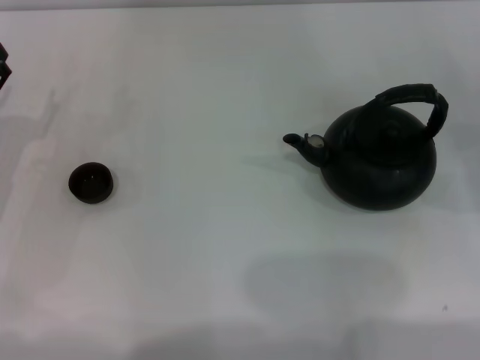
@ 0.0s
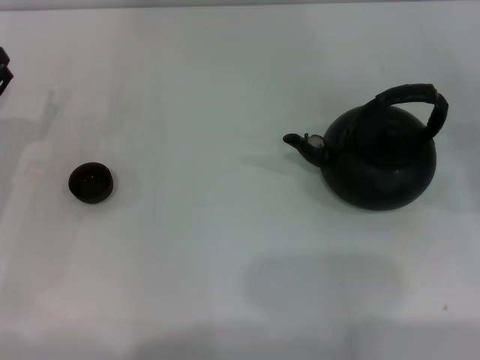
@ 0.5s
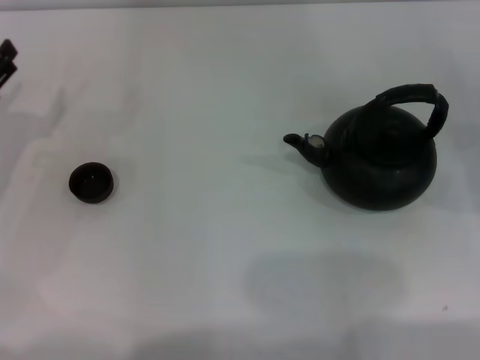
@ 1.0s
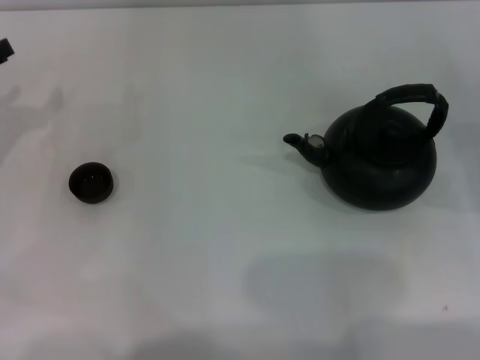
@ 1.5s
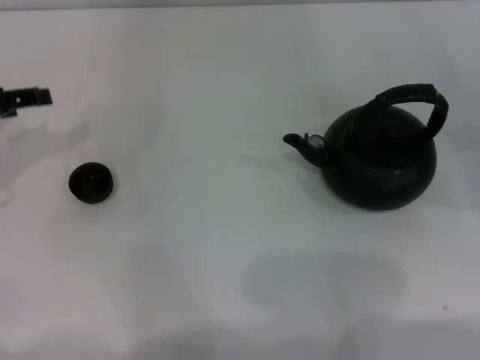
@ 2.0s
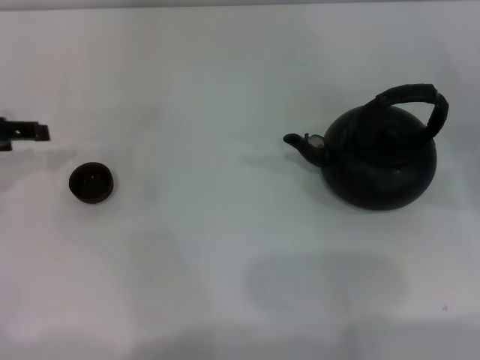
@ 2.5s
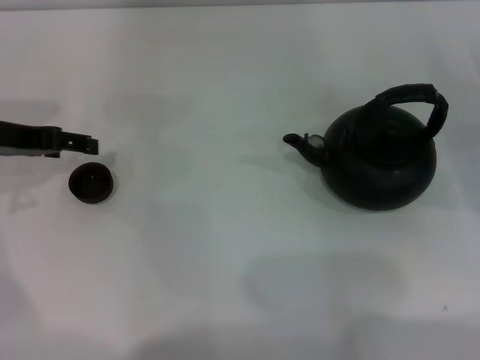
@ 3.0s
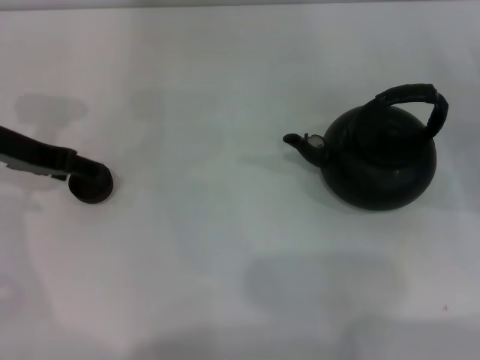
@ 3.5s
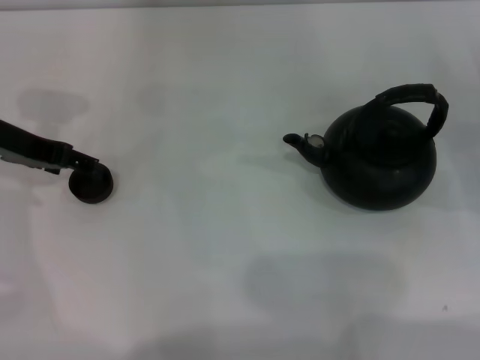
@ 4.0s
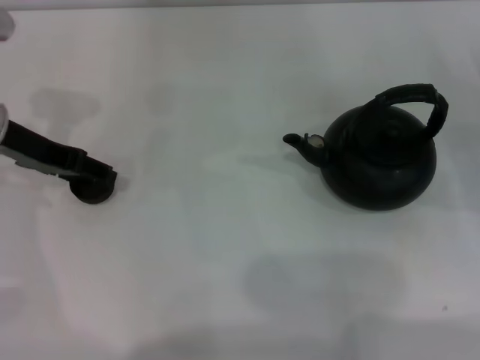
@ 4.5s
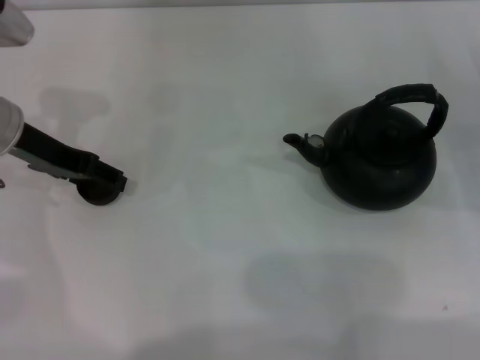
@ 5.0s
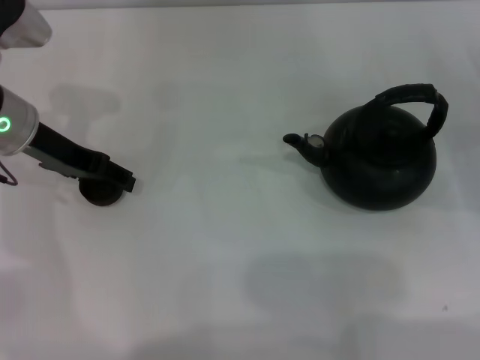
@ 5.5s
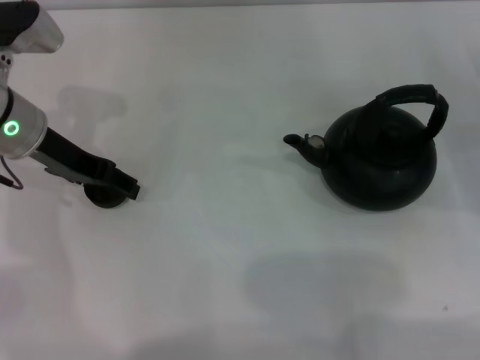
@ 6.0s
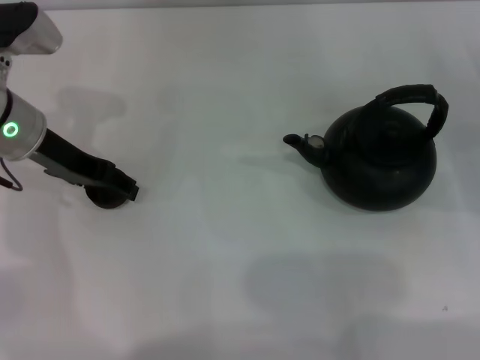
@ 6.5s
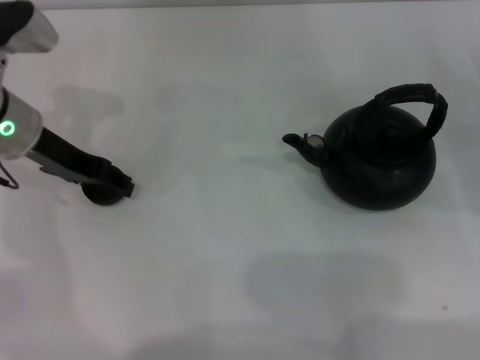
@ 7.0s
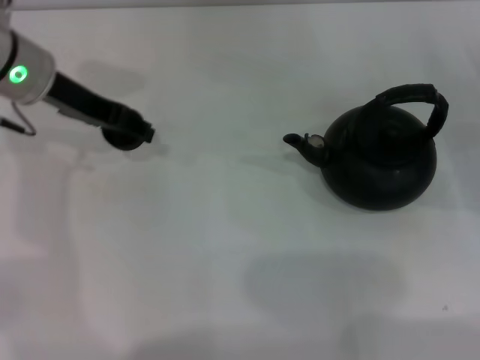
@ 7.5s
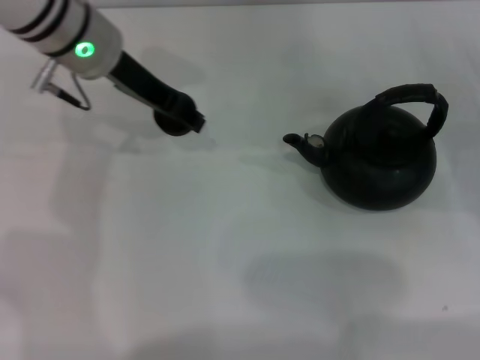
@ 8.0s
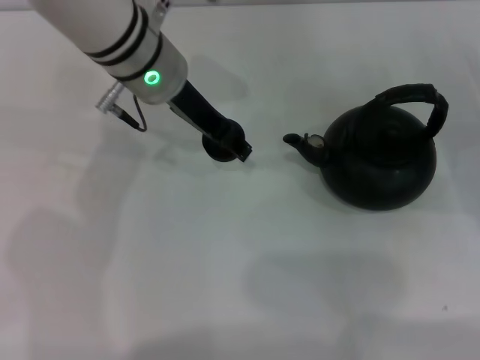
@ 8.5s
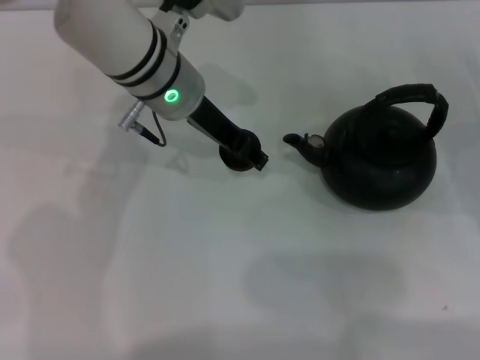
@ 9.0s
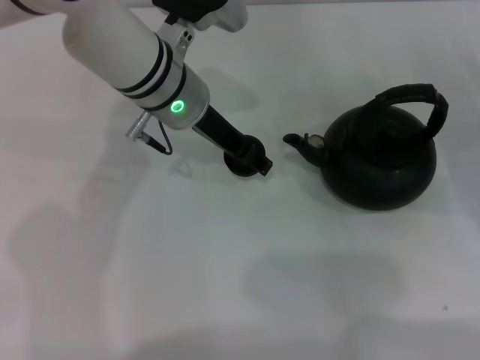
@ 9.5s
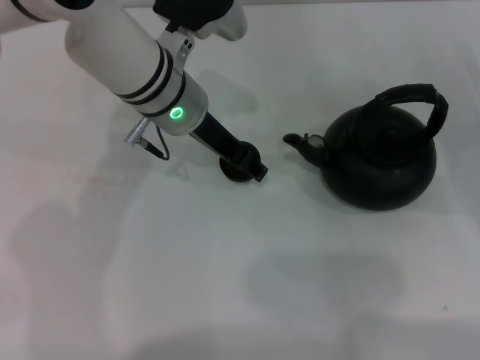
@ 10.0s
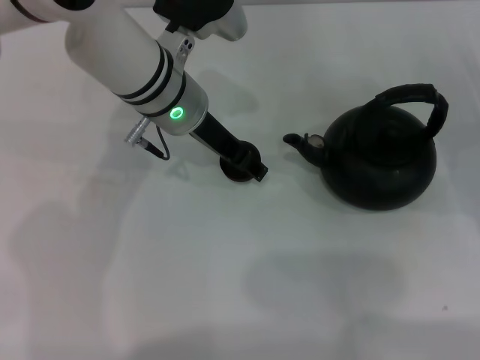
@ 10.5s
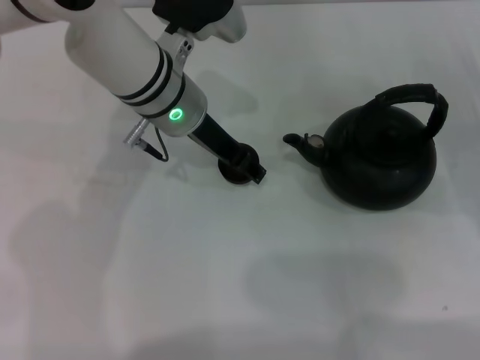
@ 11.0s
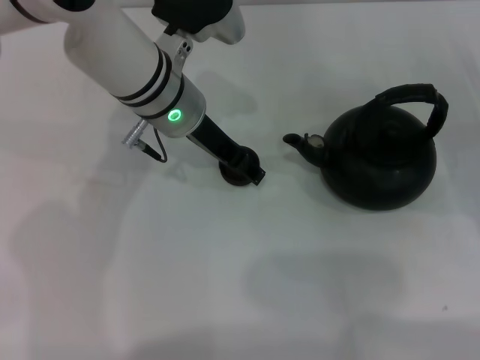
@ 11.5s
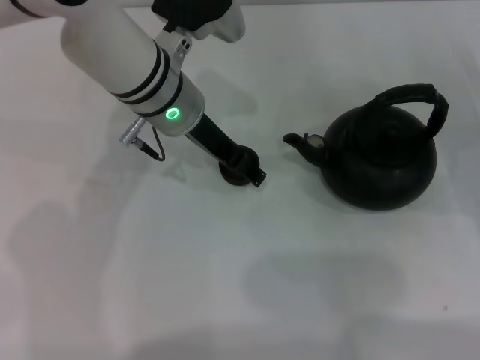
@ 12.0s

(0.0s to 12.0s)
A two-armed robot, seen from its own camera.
Task of the whole recording: Grasp the handle of the teapot with one hand and pour tea into the teacup.
Step, 0.0s - 8.0s: Pick up the teacup with the left gripper.
0.0s - 2.0s: The left gripper is displaced upward by some 10 cm.
2.0s - 4.0s: The left gripper heads to the right, covering roughly 5 cm.
4.0s - 6.0s: There are only small adjustments of the grippers.
6.0s - 8.0s: The left gripper is displaced to the right and upward by about 10 cm, and closes its fingers.
8.0s - 10.0s: The left gripper moves to the right and downward, about 10 cm.
10.0s - 12.0s: The left gripper opens.

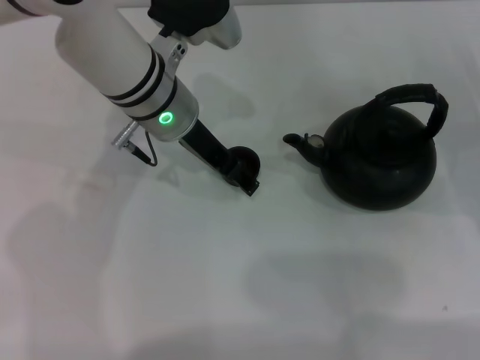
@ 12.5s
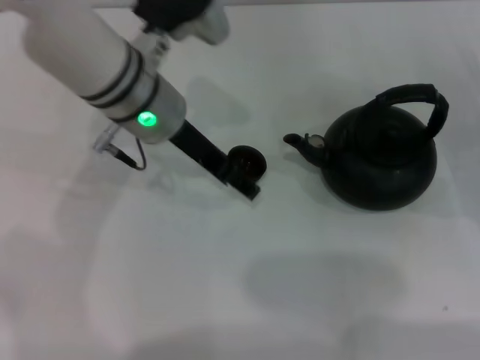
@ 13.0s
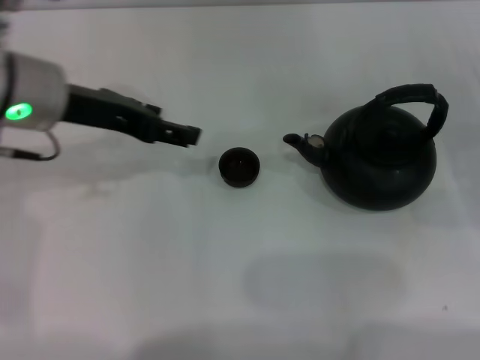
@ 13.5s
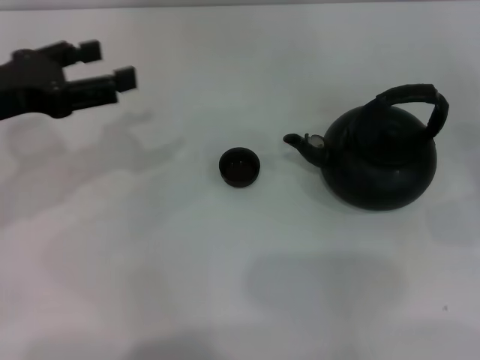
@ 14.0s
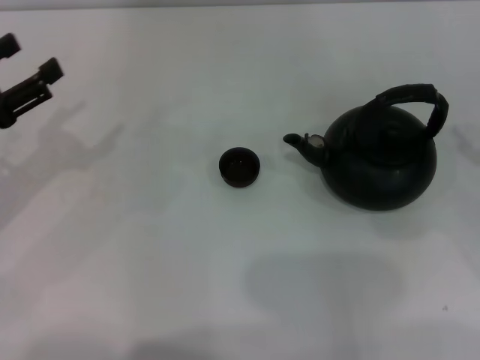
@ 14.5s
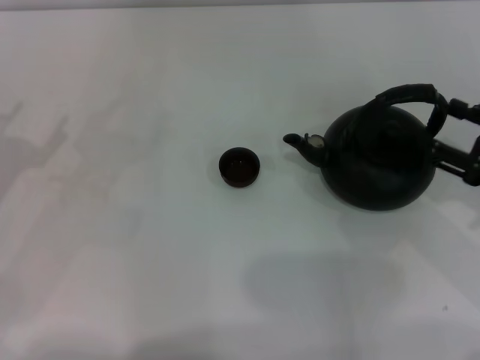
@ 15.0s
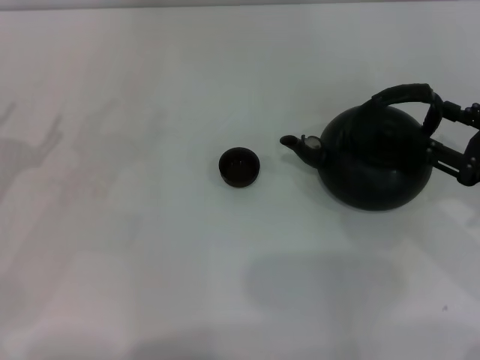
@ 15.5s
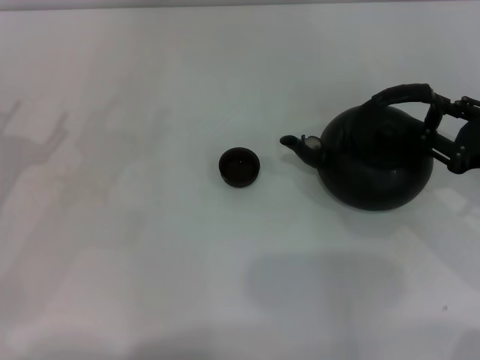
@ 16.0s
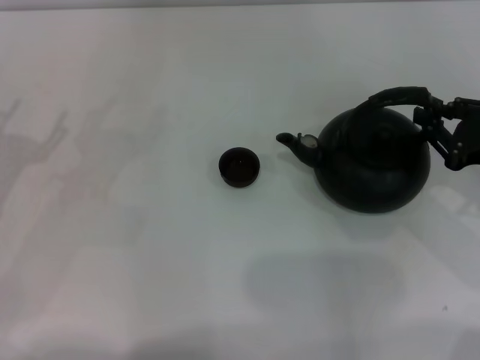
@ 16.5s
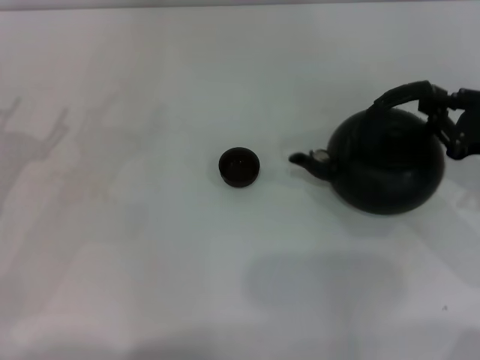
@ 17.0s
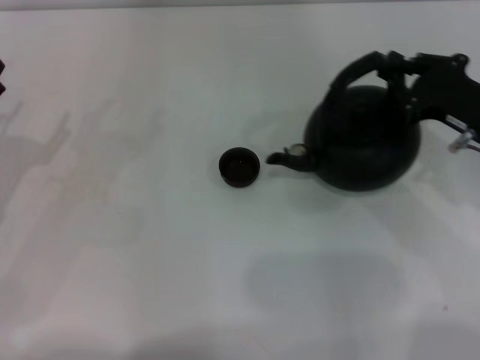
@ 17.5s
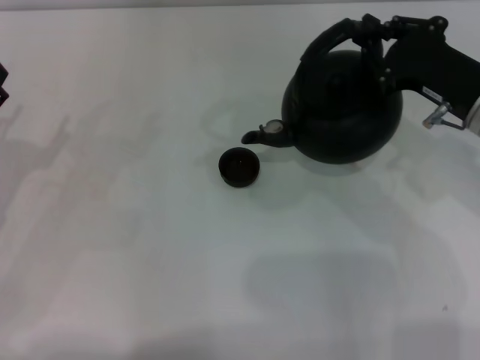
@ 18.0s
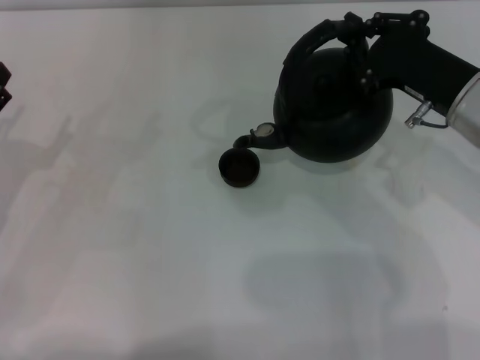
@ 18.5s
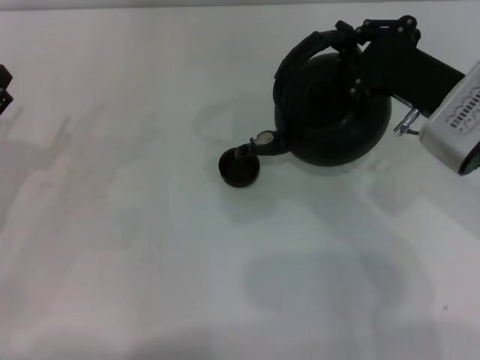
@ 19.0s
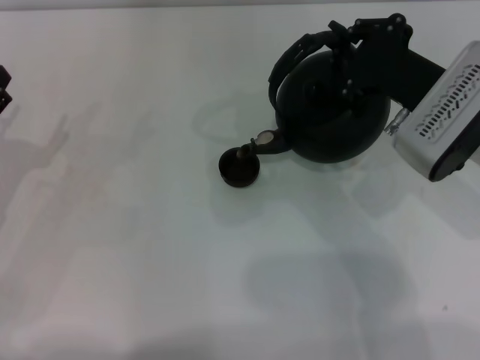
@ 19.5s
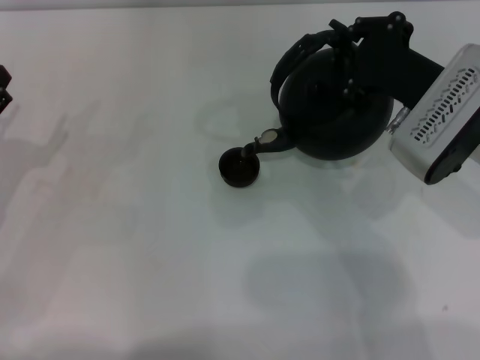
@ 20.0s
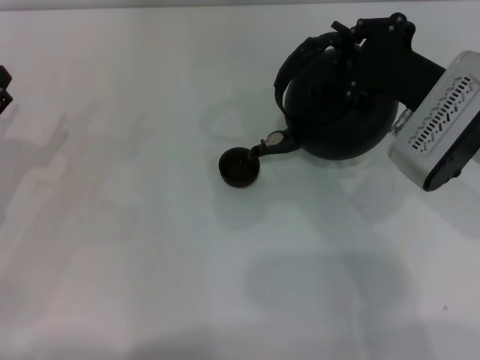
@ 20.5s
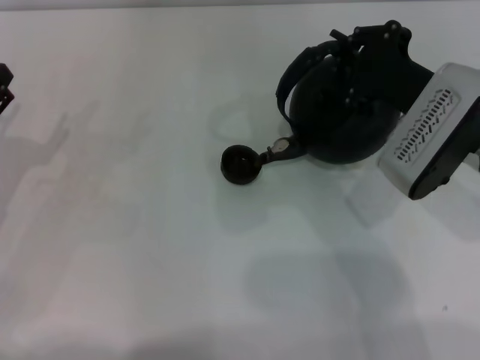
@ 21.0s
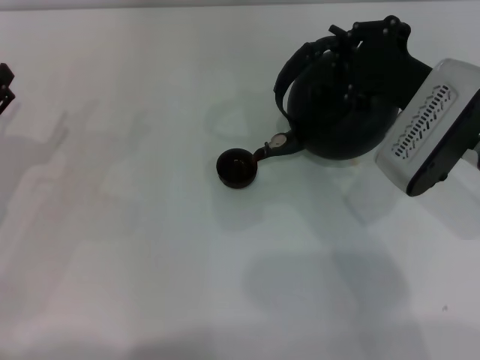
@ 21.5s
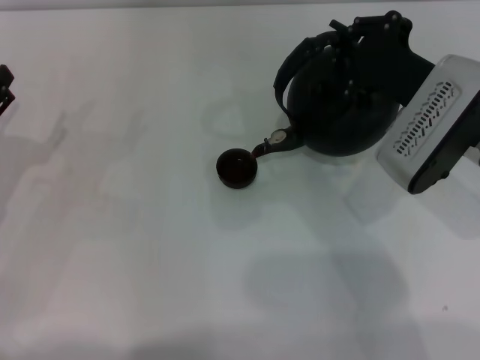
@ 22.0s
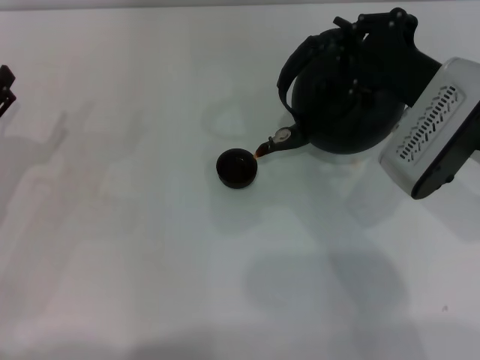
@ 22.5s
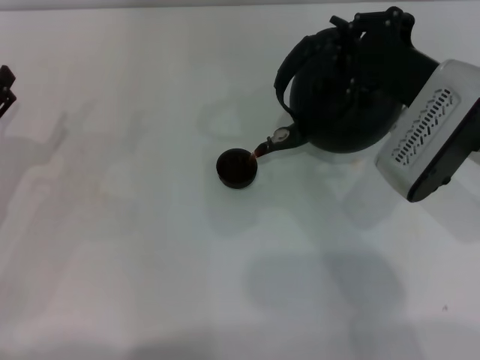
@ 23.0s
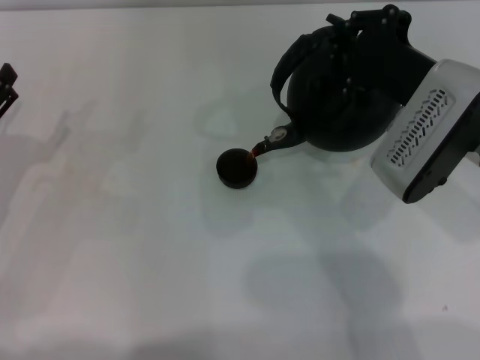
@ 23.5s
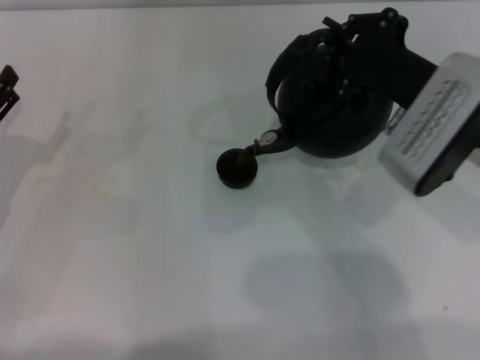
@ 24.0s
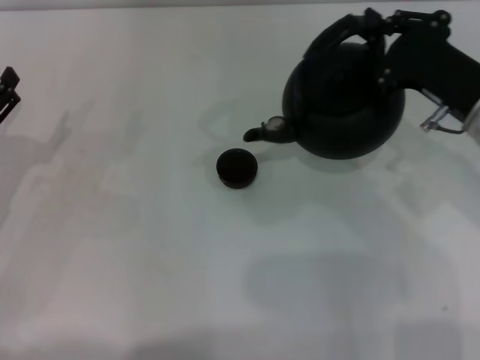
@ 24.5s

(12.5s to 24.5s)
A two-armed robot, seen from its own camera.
Task of the whole recording: Grasp the handle of the teapot with one hand and pour tea into the teacup.
Step, 13.5s - 17.0s: Pick up the teapot with the right gripper.
Step, 18.0s - 24.0s: Pour tea into the teacup with the right gripper.
12.5s - 14.5s: The right gripper heads upward, covering about 10 cm. Meanwhile the left gripper heads to the left and backward, covering some 25 cm.
14.5s - 16.5s: The right gripper ends up some 5 cm from where it was, and closes.
16.5s - 18.5s: The right gripper moves to the left, approximately 10 cm.
18.5s - 20.5s: The grippers stay close to where they were, moving slightly.
20.5s - 22.5s: The grippers stay close to where they were, moving slightly.

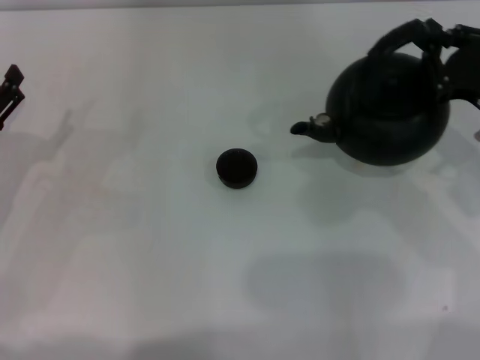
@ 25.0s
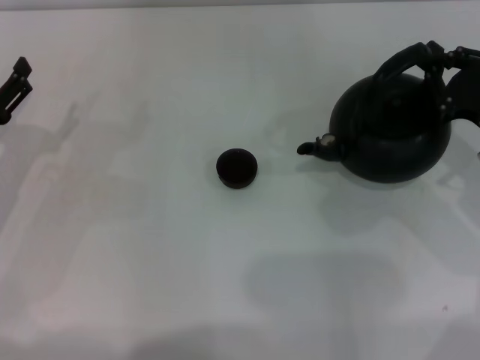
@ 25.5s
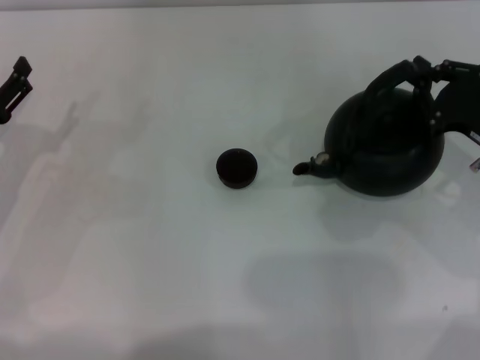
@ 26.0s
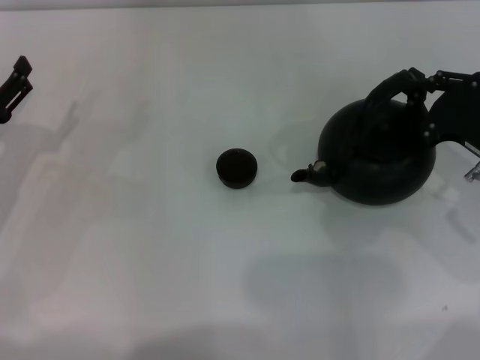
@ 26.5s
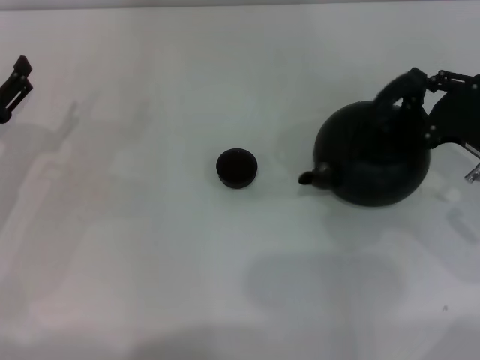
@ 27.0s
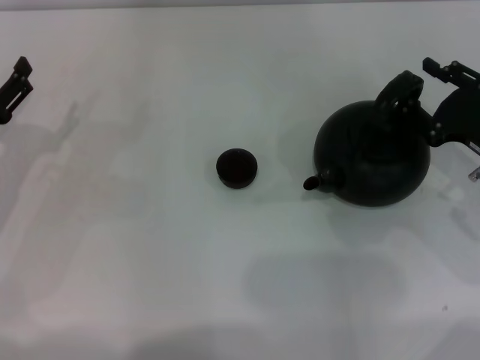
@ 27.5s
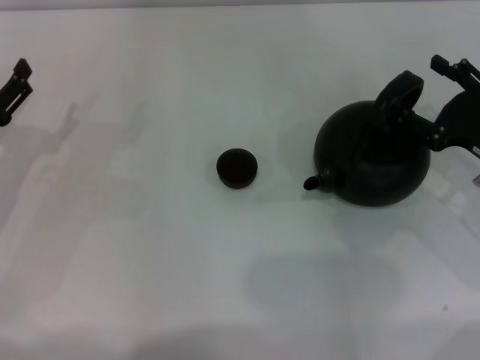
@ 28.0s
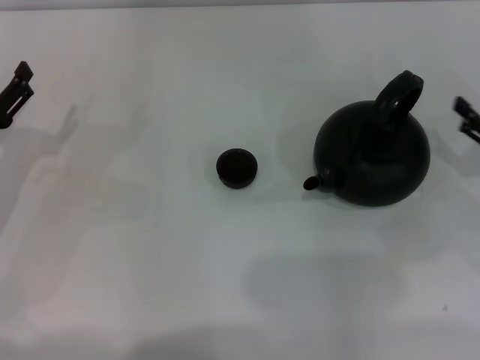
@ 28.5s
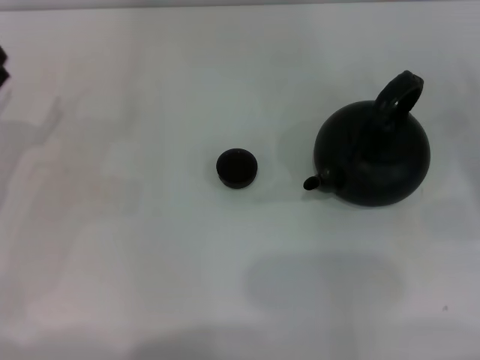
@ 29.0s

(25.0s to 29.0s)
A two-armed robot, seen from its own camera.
Task of the whole recording: Grasp the handle of the teapot with one hand and pour tea into the teacup.
Step, 25.0s - 27.5s: Put down the teapot with the right gripper.
25.0s - 27.0s: The grippers make only small movements.
27.0s - 29.0s: The right gripper travels to the right by approximately 10 cm, and opens up.
